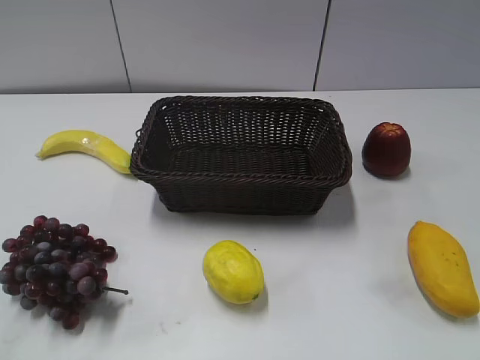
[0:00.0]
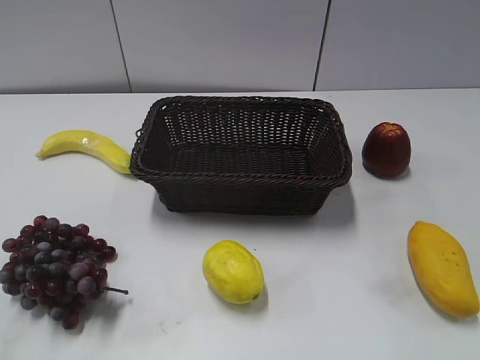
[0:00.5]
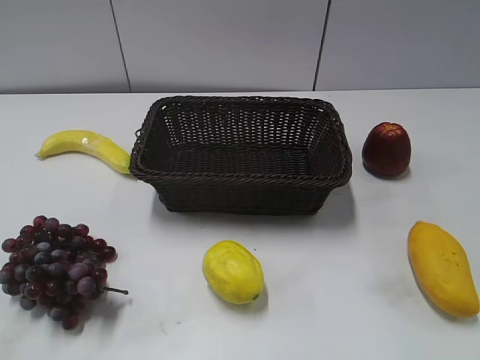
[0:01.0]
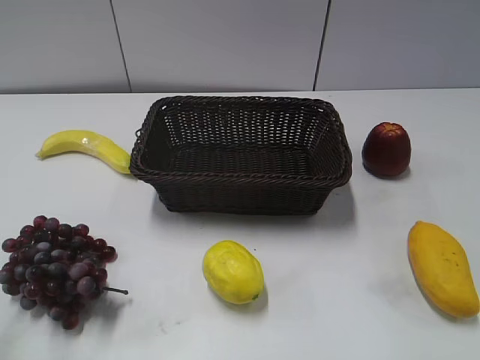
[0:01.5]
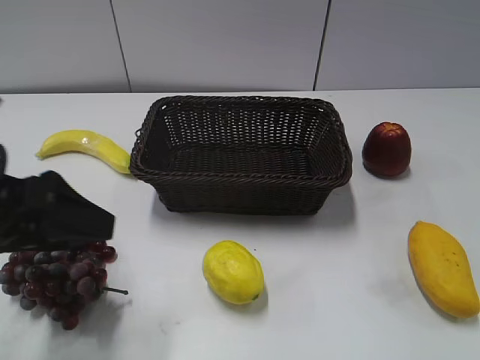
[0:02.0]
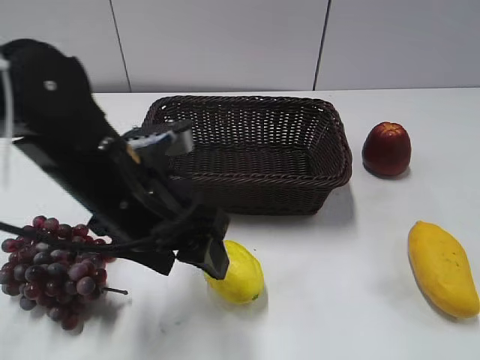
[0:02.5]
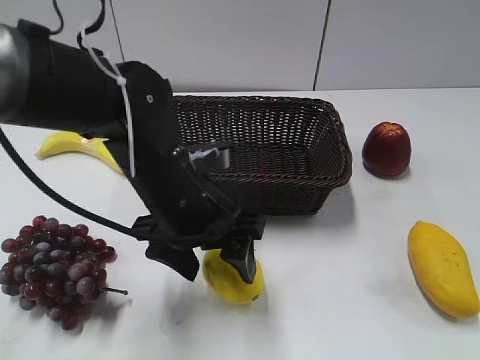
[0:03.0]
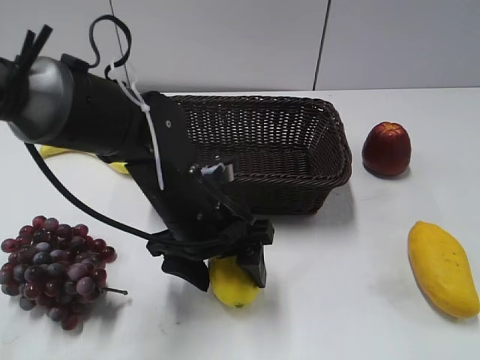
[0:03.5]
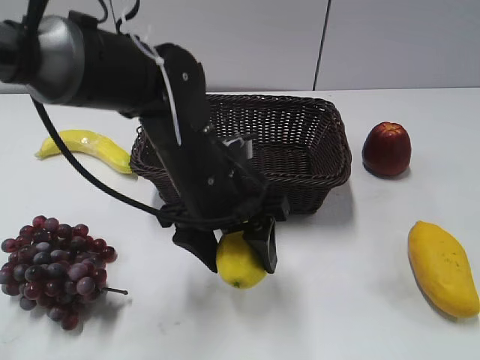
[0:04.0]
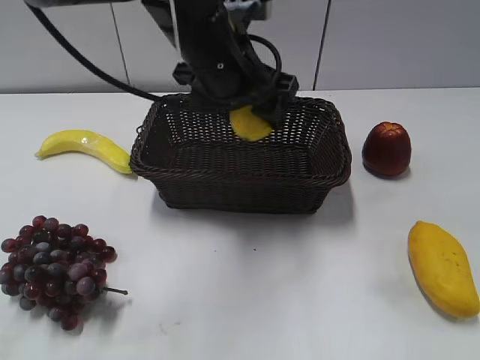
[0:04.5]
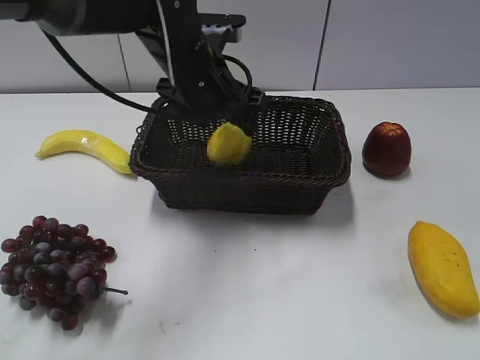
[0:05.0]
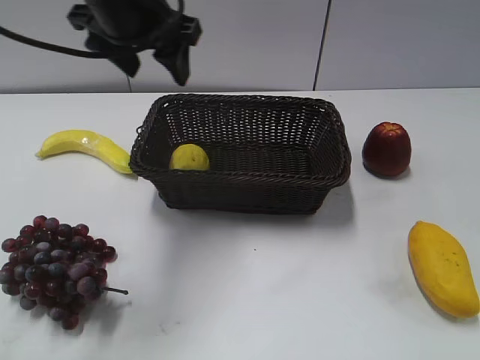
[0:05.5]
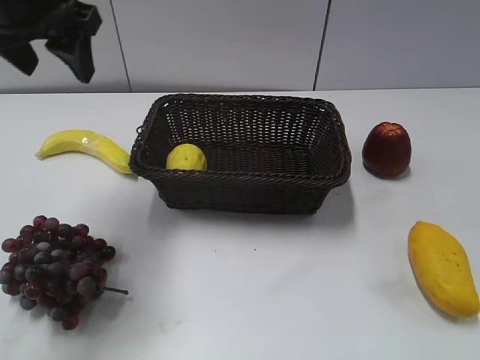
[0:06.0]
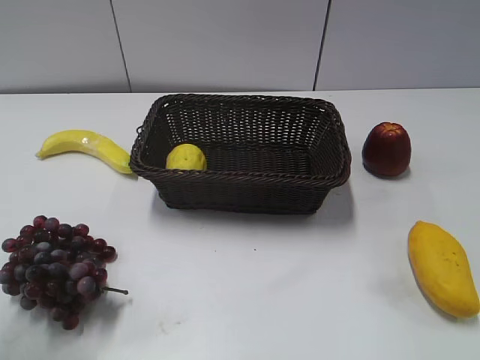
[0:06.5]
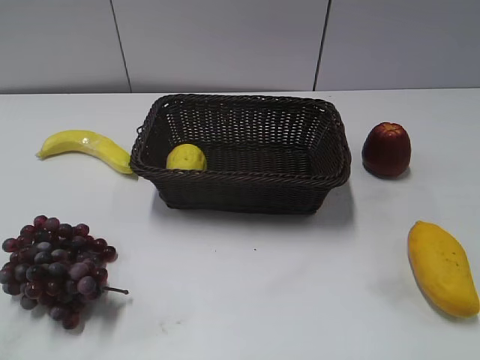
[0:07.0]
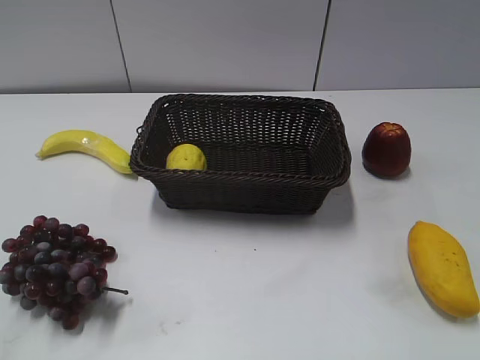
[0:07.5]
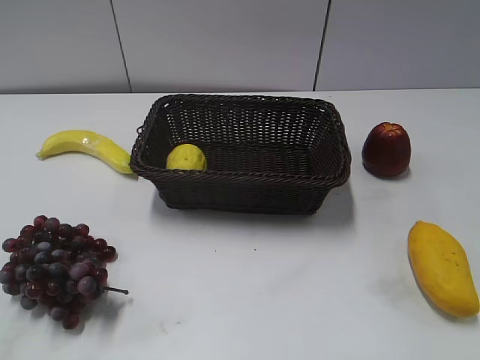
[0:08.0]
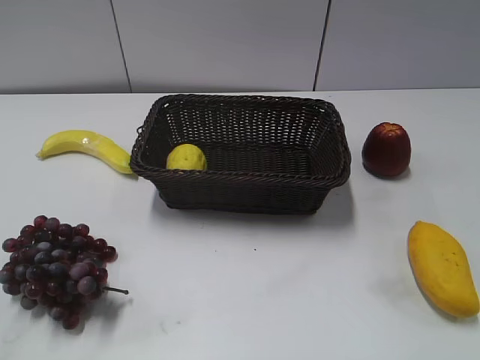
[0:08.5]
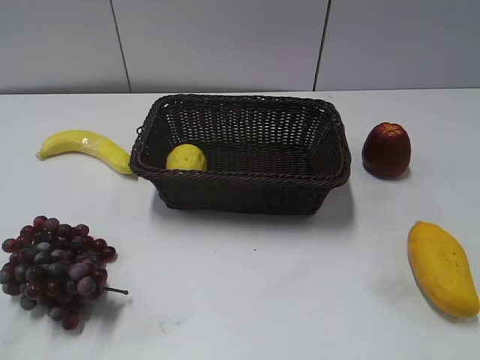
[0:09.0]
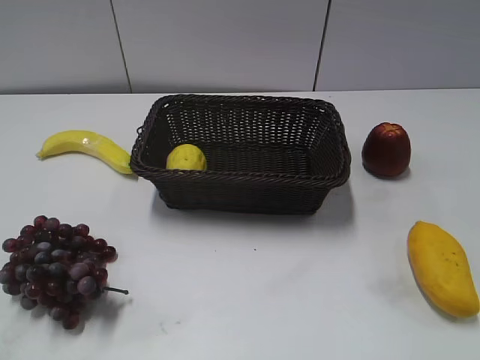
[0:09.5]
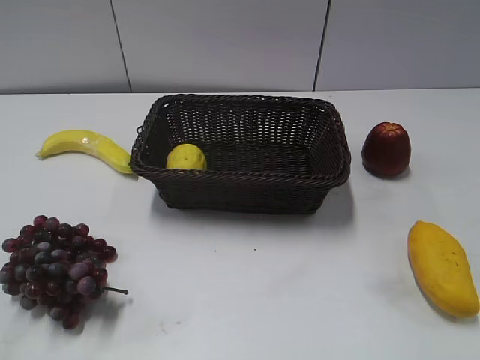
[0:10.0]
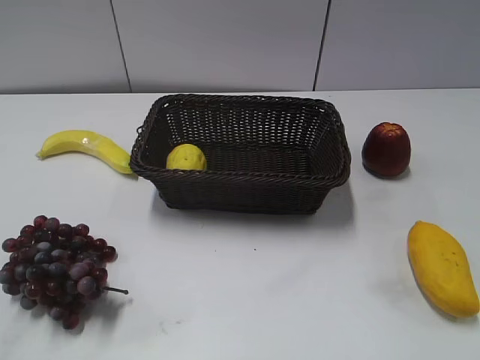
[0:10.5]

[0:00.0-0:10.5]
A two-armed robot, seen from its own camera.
Step, 0:02.0 to 0:03.5: Grasp the lemon with left gripper.
Step, 0:04.0 to 0:05.0: Place the lemon in the basket with left gripper.
0:02.0 to 0:04.0: The left gripper travels to the right, downward and forward by about 25 cm, and opens and closes again.
0:04.0 to 0:06.5: The left gripper is displaced to the left and upward by some 25 cm, and opens, then closes once more.
0:06.5 to 0:08.5: The left gripper heads backward and to the left, covering roughly 20 cm.

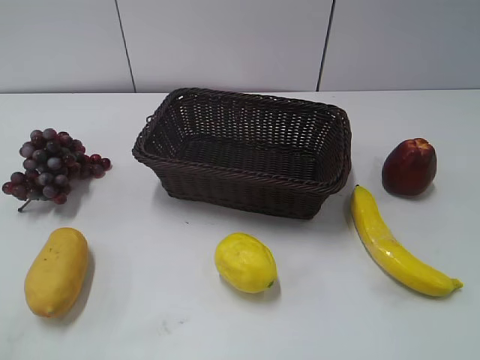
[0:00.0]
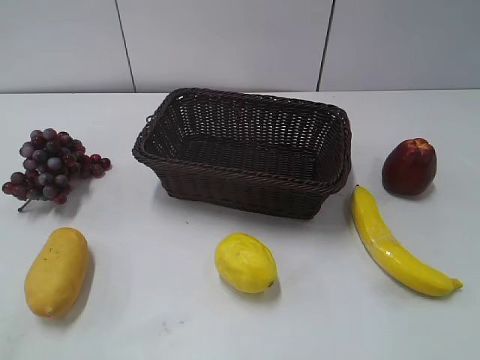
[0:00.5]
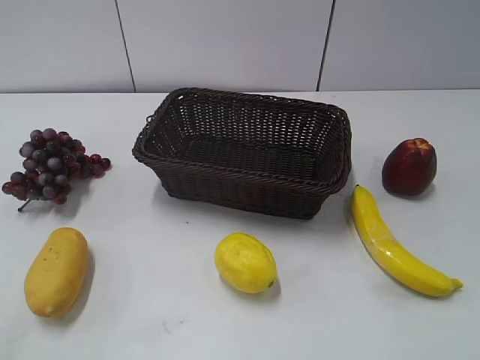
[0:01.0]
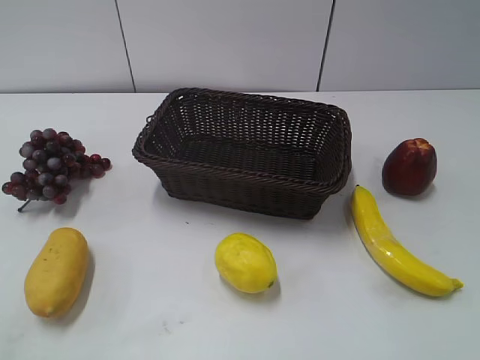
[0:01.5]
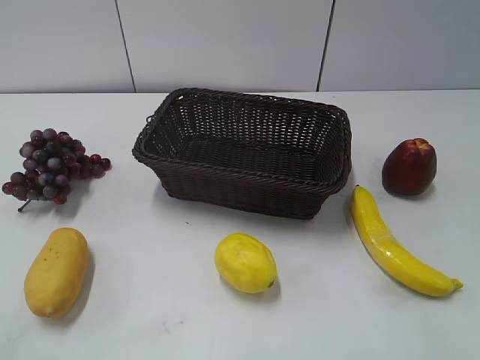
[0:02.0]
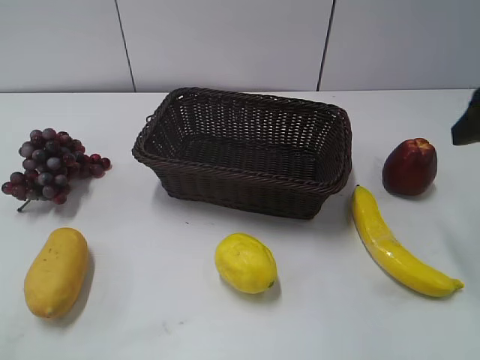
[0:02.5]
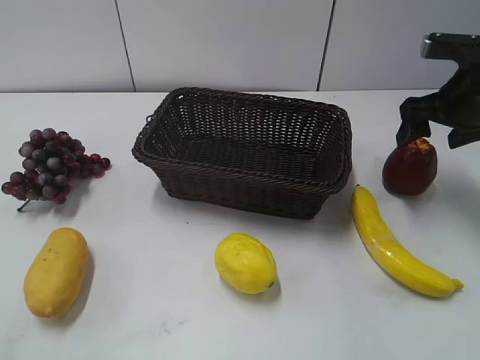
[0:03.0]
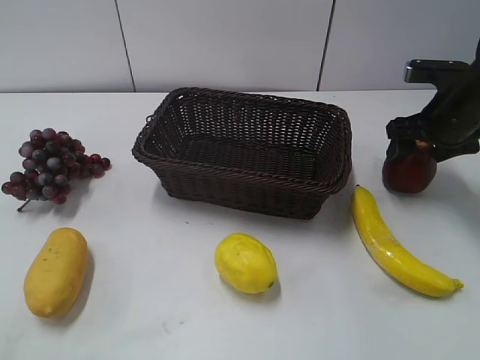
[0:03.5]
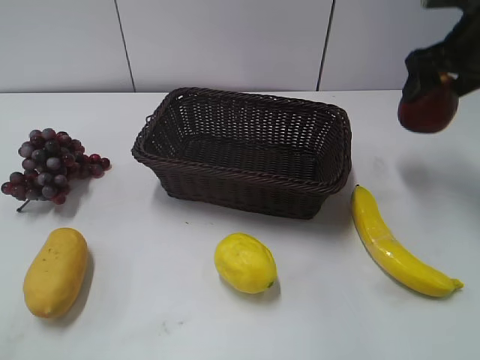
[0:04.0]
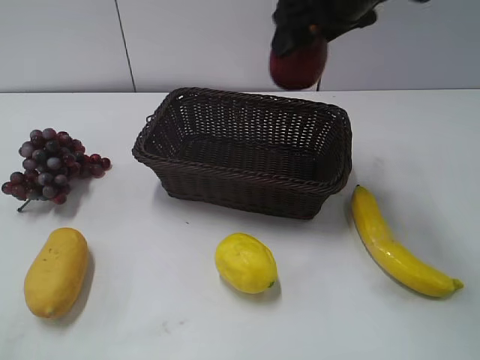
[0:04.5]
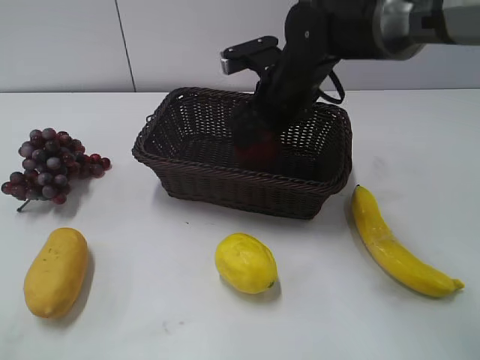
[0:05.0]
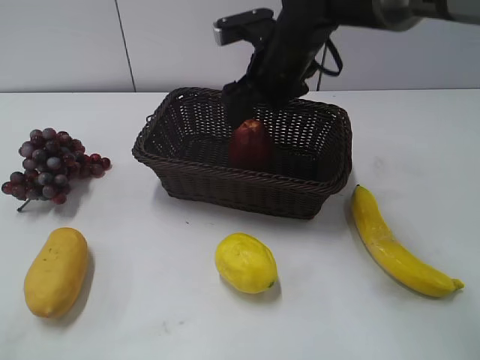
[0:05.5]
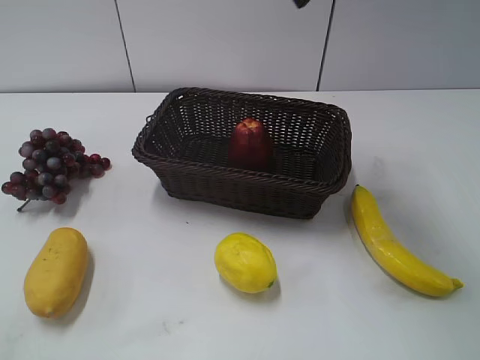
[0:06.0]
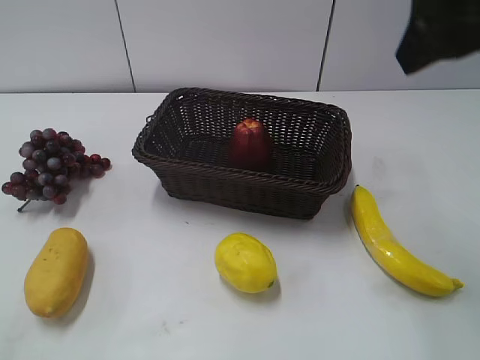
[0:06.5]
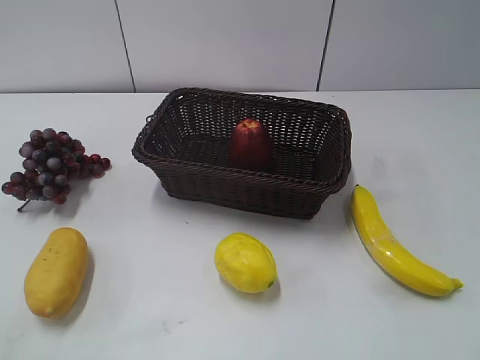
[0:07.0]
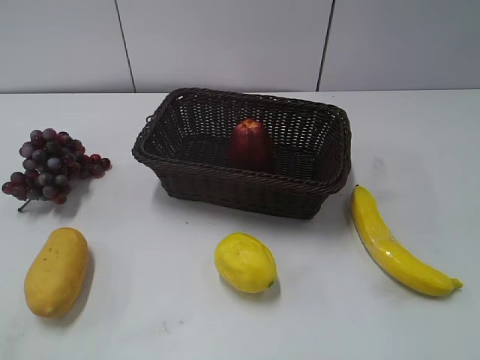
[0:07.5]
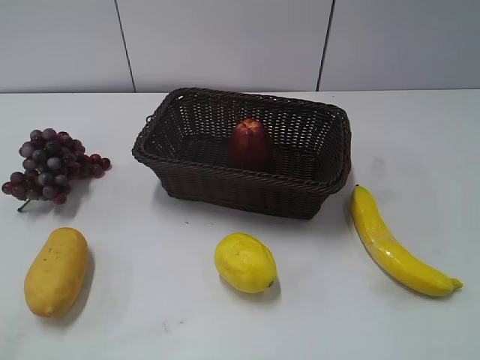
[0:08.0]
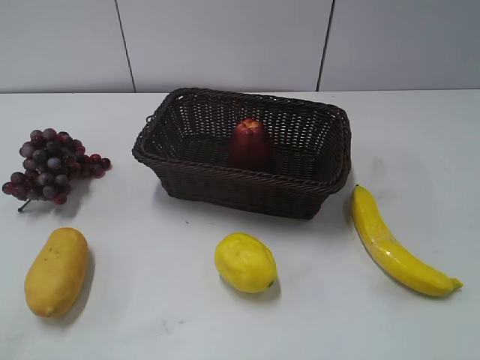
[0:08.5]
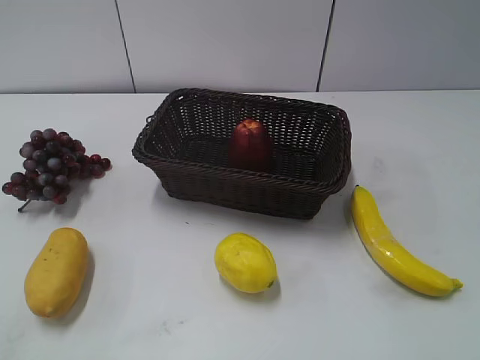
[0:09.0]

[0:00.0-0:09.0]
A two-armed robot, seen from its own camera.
Step, 0:02.5 to 0:03.0: Grasp the apple with right gripper.
Step, 0:04.0 to 0:05.0: Place the apple in the basket with right gripper.
0:02.0 to 0:04.5: The right gripper is displaced forward and to the left by some 35 cm.
0:04.5 to 0:07.0: The right gripper heads backward and to the right, covering approximately 30 cm.
